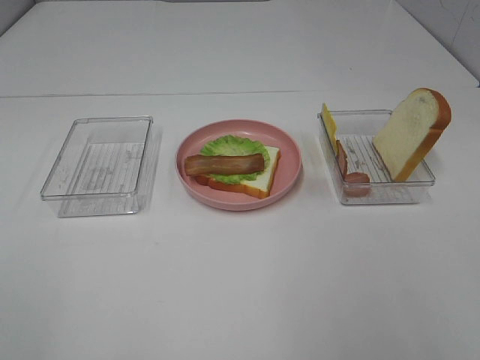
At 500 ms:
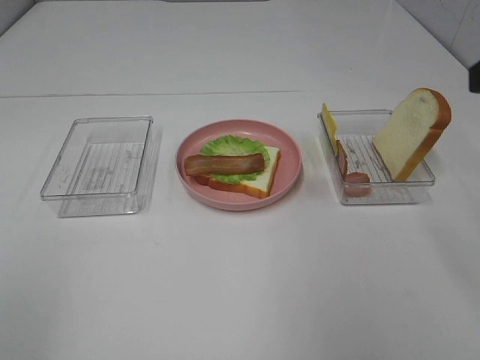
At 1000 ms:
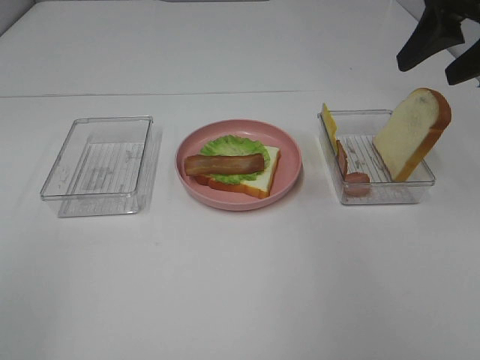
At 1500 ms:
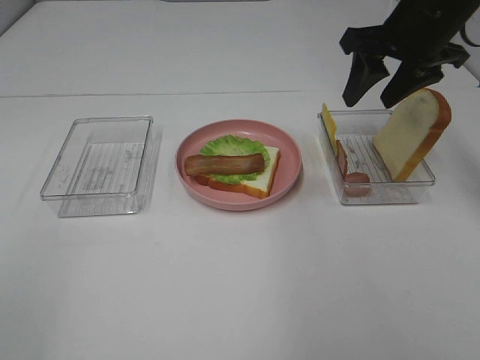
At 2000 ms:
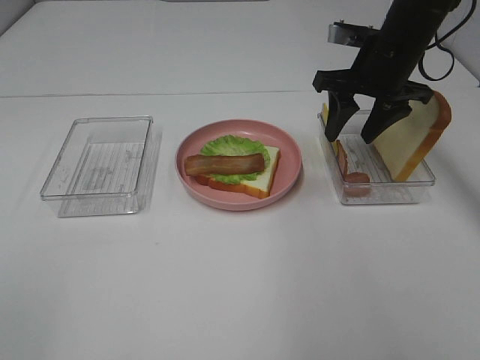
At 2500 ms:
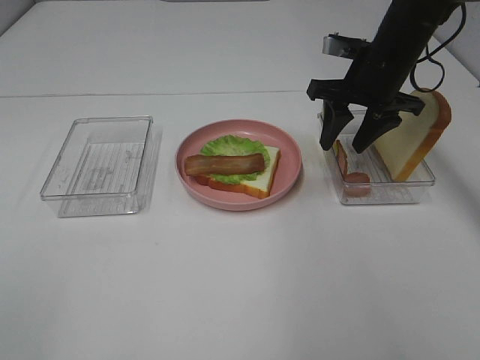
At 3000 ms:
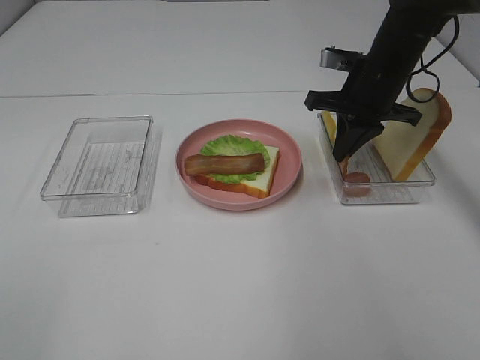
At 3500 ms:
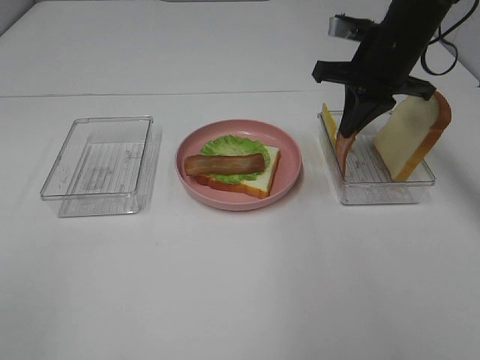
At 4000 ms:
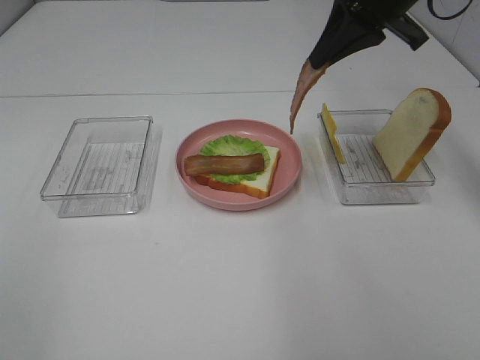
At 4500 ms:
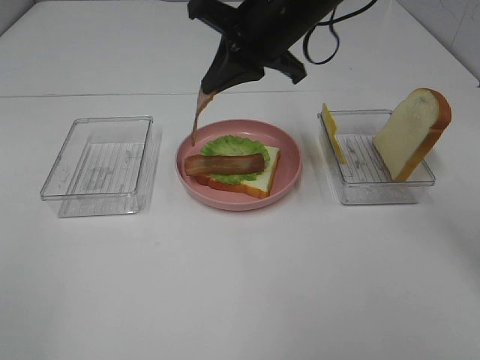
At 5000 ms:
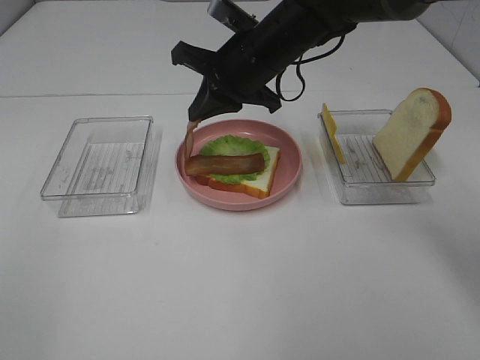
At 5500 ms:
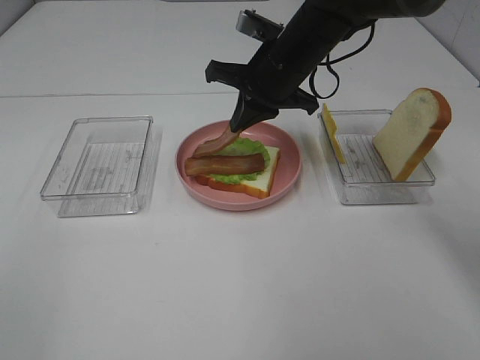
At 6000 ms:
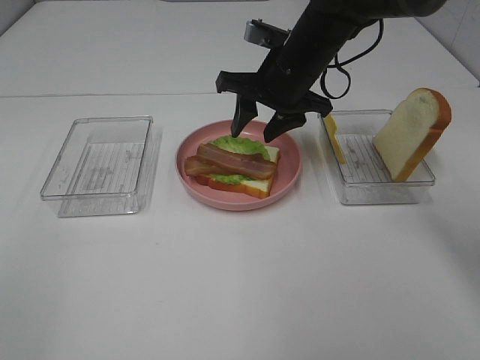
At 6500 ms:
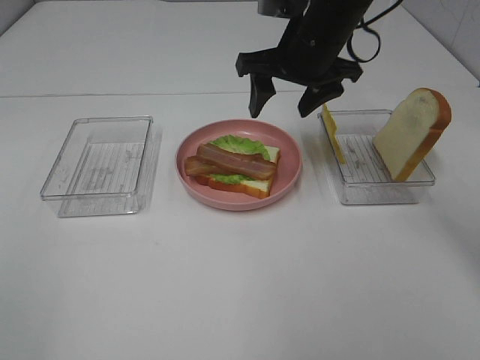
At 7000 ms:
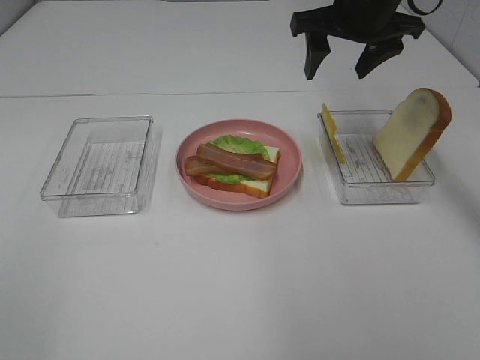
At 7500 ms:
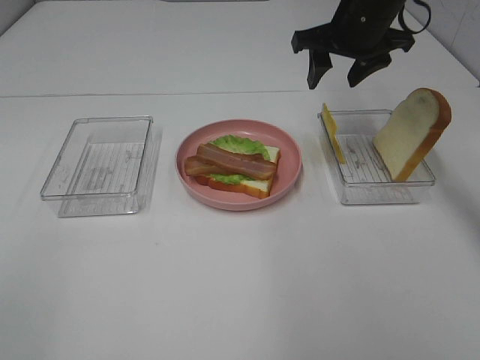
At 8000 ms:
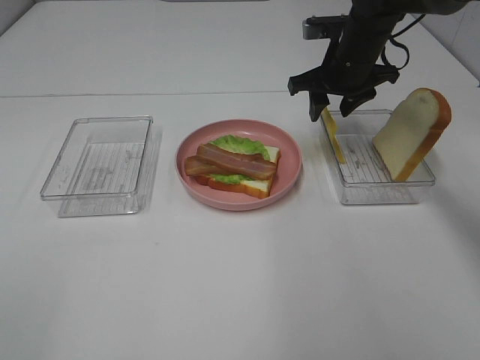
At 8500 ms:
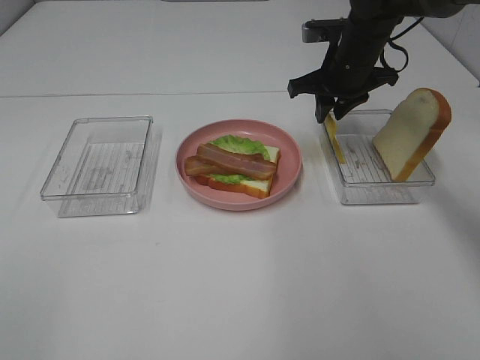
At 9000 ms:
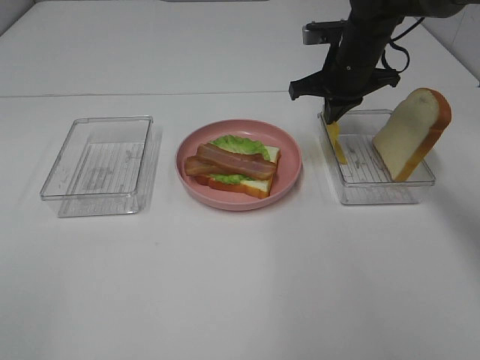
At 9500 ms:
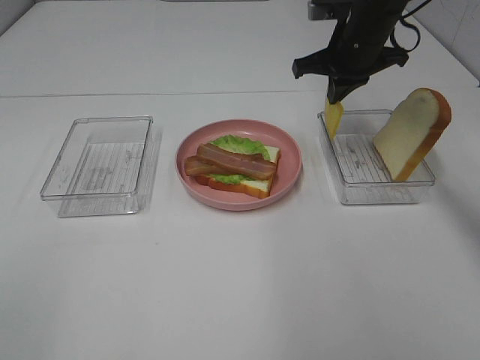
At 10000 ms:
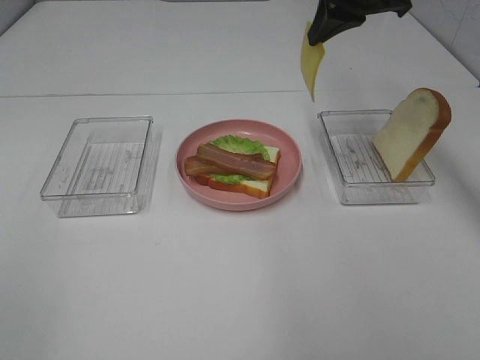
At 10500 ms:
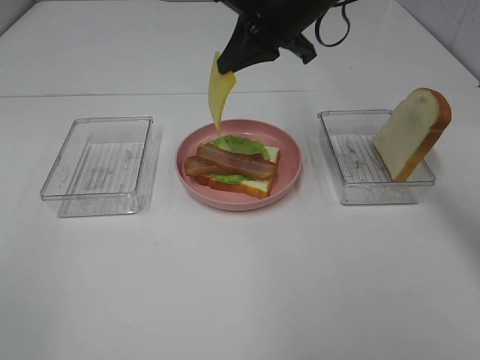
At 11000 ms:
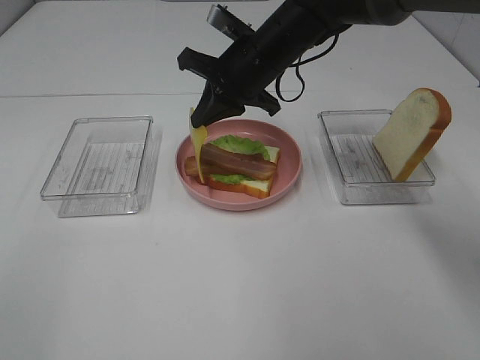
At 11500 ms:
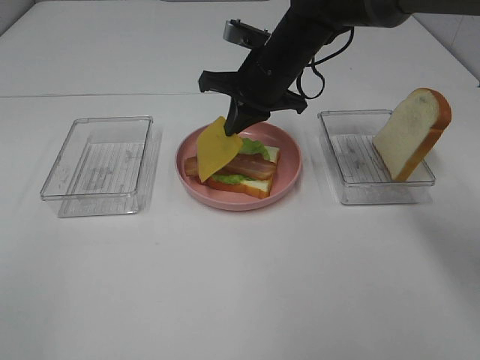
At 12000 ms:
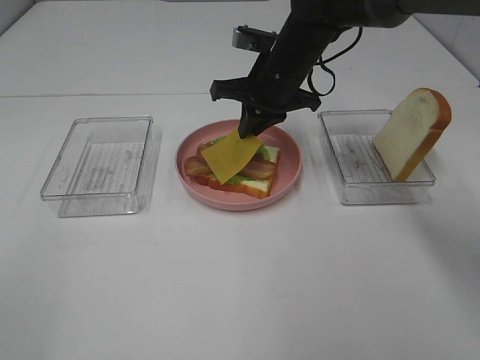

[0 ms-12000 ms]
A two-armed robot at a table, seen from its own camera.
Task of the whole recording: Make sandwiches.
Step, 0 ms to 3000 ms: Right hand:grab the bacon.
Step, 3500 ms to 6000 ms: Right hand:place bacon on bacon.
Step, 6500 ms to 9000 ms: Right hand:grab the cheese slice.
0 ms to 2000 ms: The right gripper moves forward, approximately 35 cm.
2000 ms to 4000 ms: The right gripper heads upward, covering about 10 cm, and closes.
4000 ms to 6000 ms: The right gripper heads downward and to the left, covering roughly 15 cm, and opens up.
6000 ms to 8000 ms: The right gripper goes some 10 cm to the right and forward, and moves roughly 10 cm upward and comes back.
8000 ms to 10000 ms: The right gripper travels upward by roughly 15 cm, and closes.
10000 ms to 12000 ms: The right gripper shifts approximately 15 cm downward and to the left.

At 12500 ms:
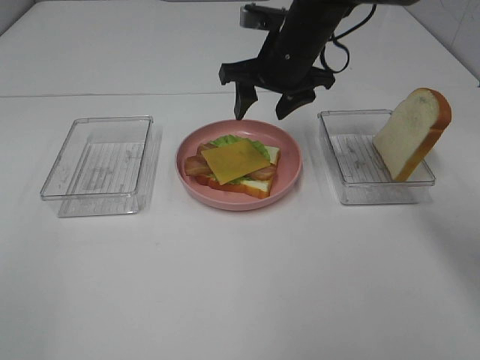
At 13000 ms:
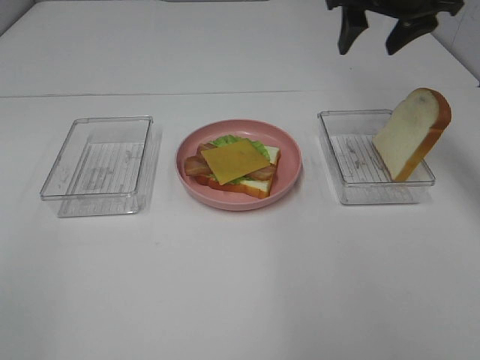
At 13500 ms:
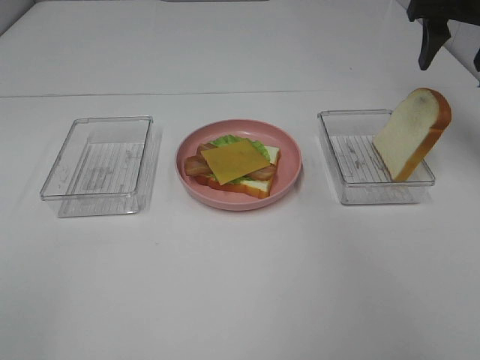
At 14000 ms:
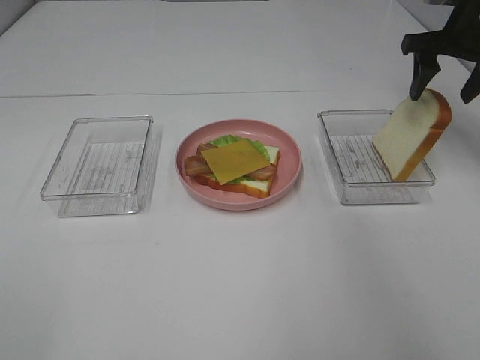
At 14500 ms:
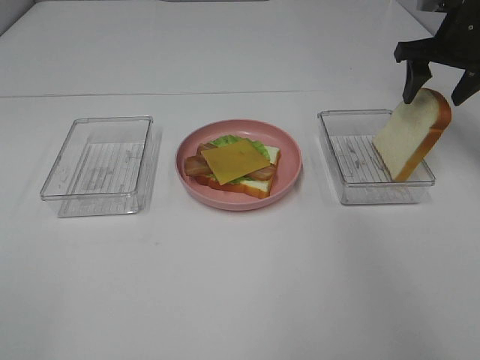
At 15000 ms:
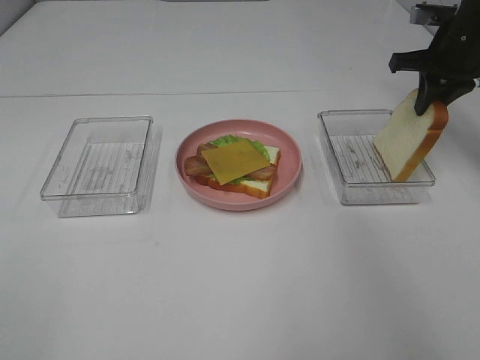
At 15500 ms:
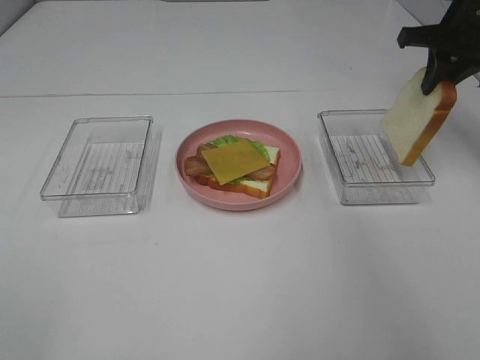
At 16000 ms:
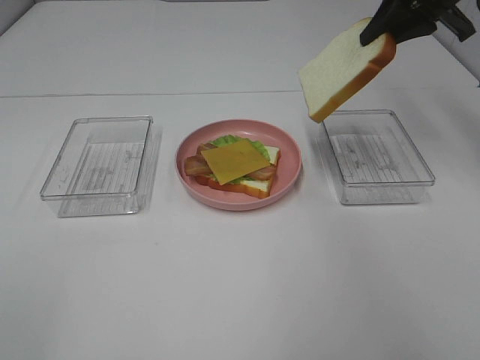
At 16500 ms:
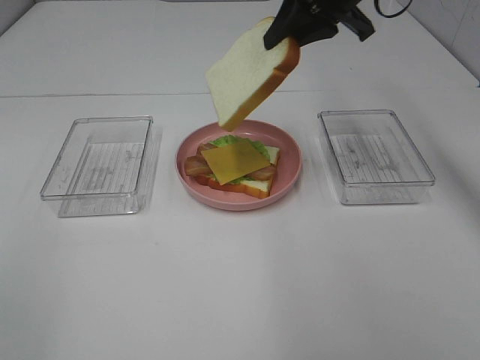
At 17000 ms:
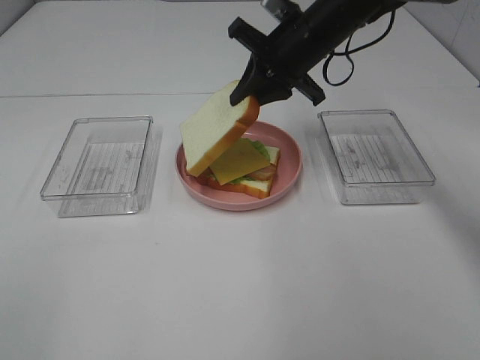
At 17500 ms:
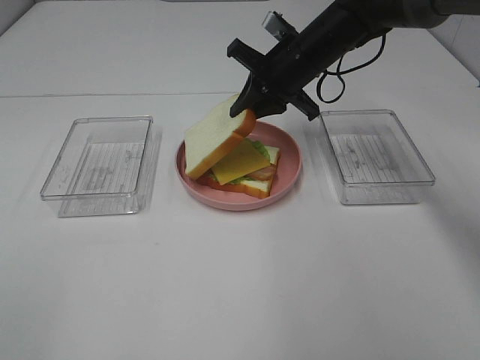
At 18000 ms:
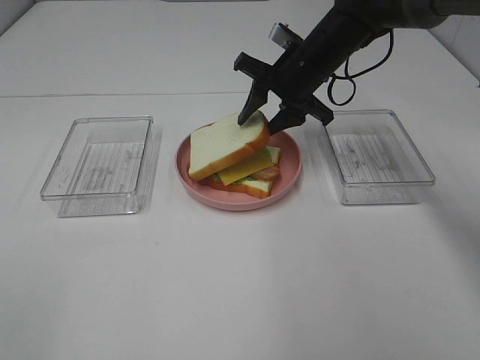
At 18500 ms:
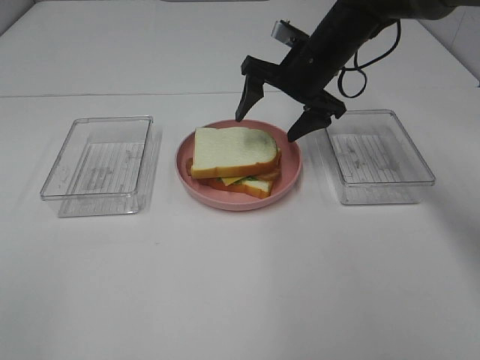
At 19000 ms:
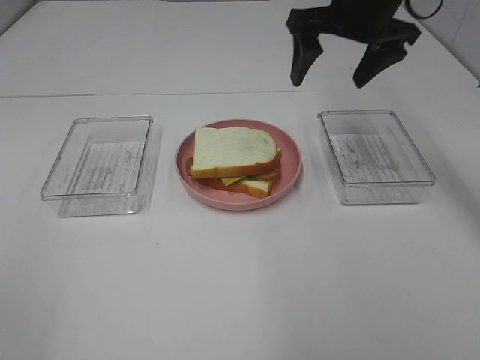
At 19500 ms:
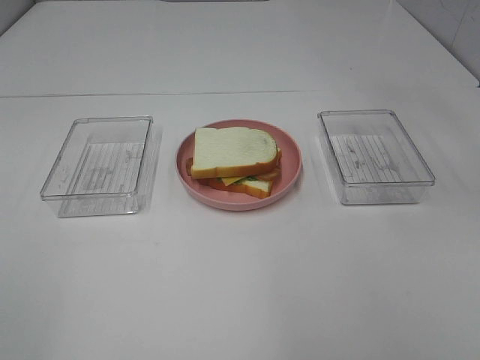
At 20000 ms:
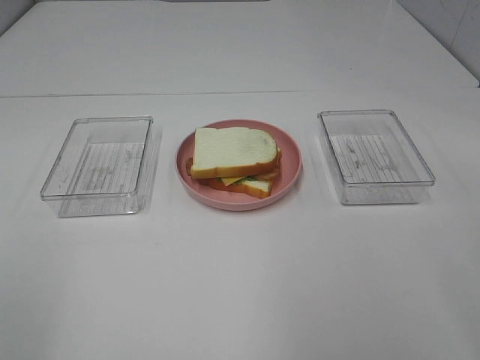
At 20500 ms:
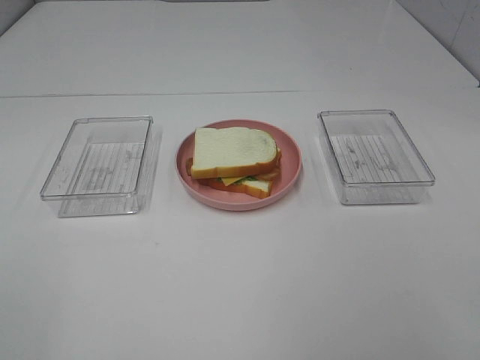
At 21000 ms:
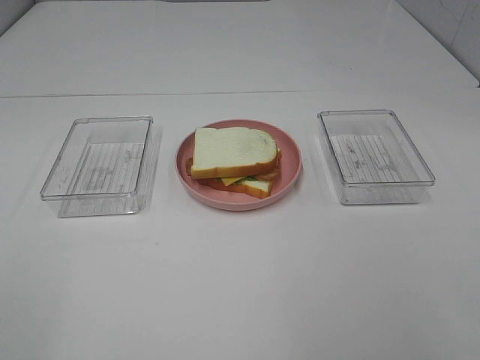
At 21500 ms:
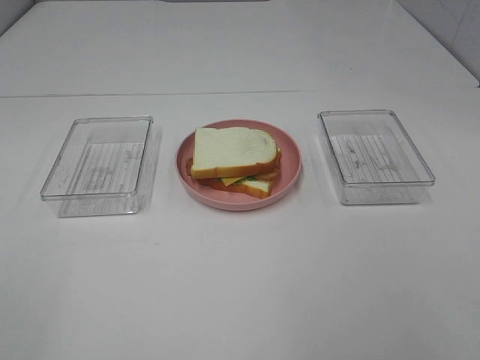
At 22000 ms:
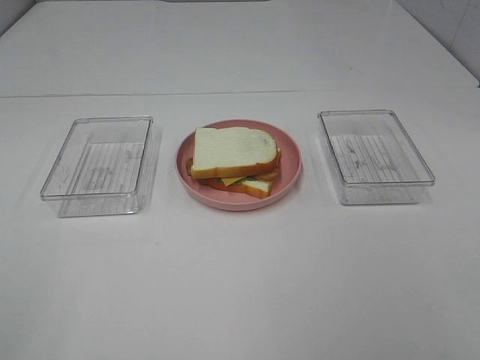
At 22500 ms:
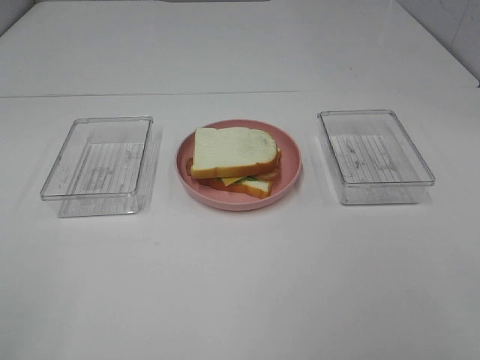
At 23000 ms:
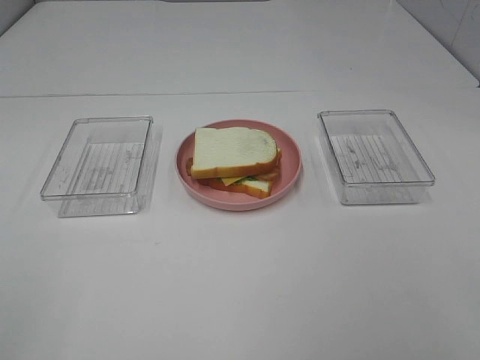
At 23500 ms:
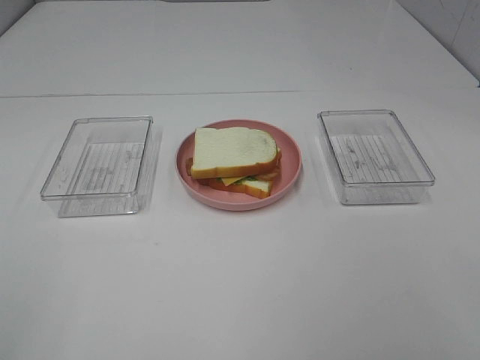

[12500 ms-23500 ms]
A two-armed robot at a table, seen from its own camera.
Task of the whole recording: Make sandwiches.
Step, 12500 ms to 15000 ms: Right hand:grab the bread slice.
Step, 15500 ms to 18500 ms: Right hand:place the bread slice on the cheese slice.
12500 ms to 14500 ms: The right gripper moves to the right, about 25 cm.
14500 ms to 16000 ms: The right gripper moves upward and to the left, approximately 10 cm, and closes its fingers.
16000 ms to 18000 ms: The right gripper goes some 20 cm to the left and downward, and opens its fingers.
18000 ms to 20000 ms: The right gripper goes roughly 40 cm backward, upward and to the right, and opens up.

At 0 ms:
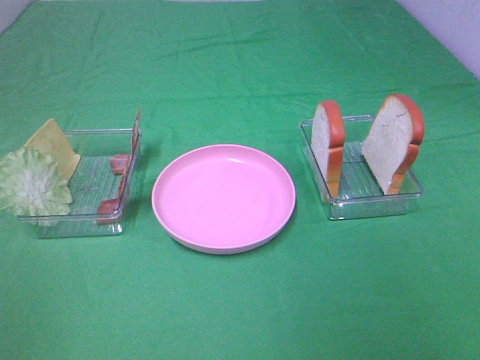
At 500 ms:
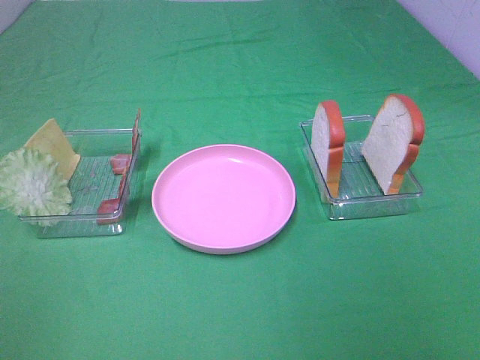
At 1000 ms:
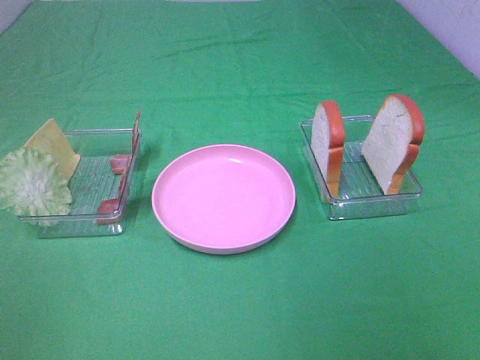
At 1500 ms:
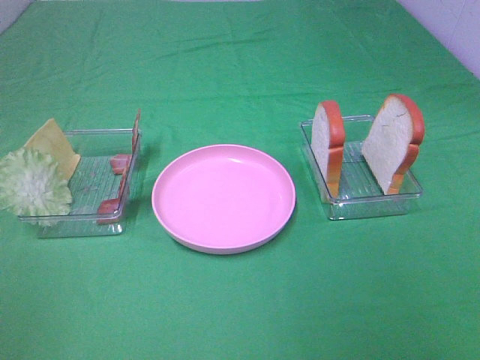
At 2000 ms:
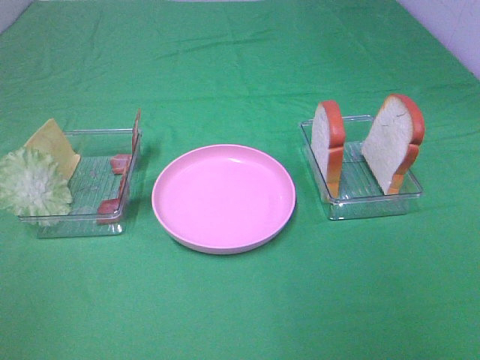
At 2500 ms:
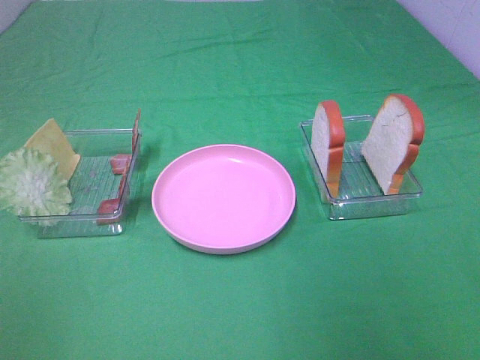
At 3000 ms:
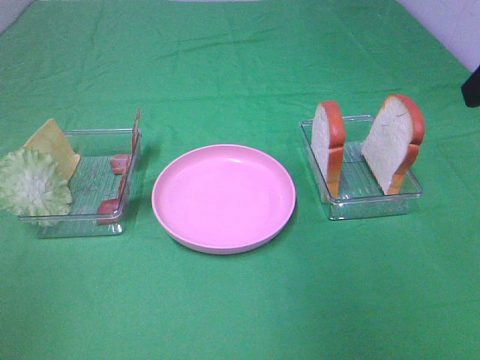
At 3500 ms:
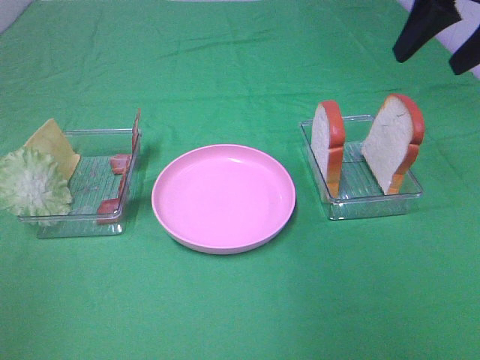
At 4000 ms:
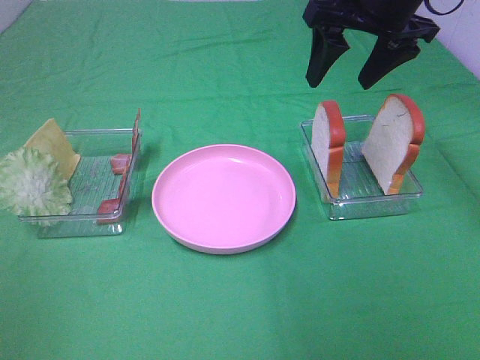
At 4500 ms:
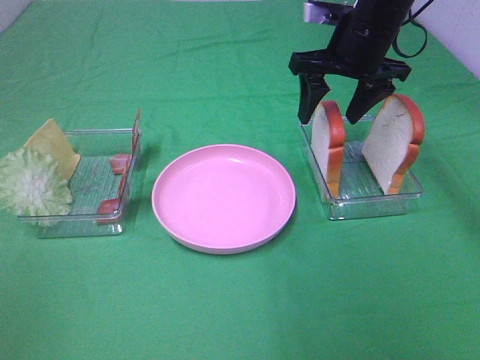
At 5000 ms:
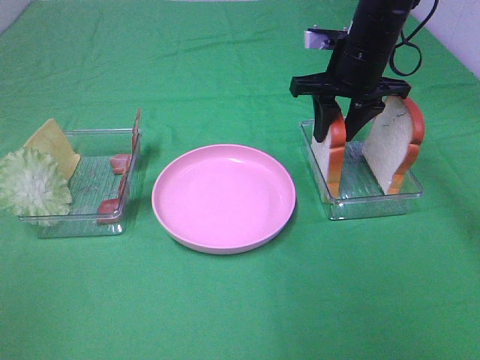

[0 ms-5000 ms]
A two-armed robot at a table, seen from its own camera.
Task of the whole recording: Make sandwiches.
2500 ms to 5000 ms: The right gripper heads forward, covering approximately 35 cm, and closes its fingers.
